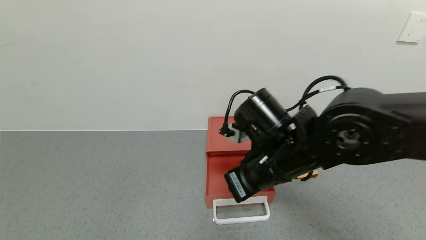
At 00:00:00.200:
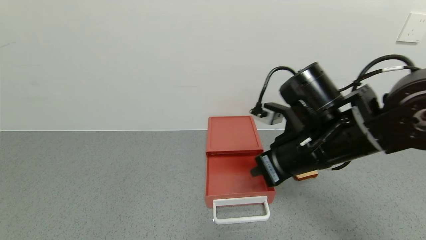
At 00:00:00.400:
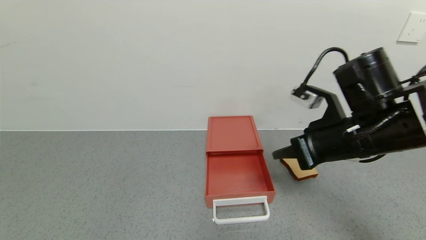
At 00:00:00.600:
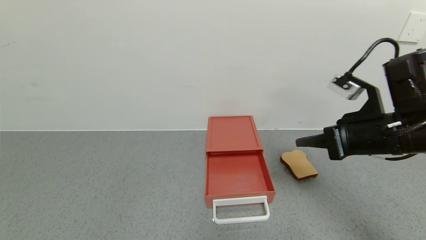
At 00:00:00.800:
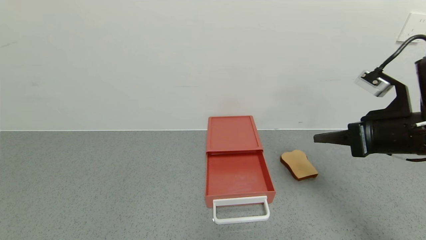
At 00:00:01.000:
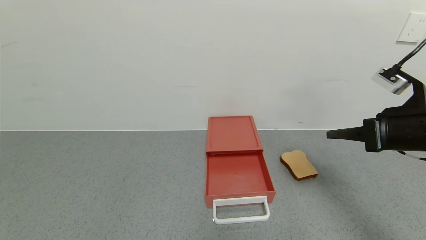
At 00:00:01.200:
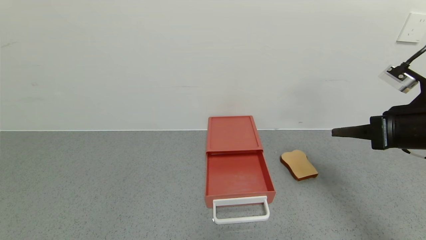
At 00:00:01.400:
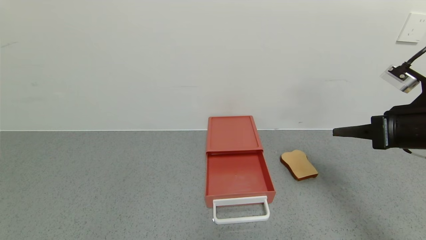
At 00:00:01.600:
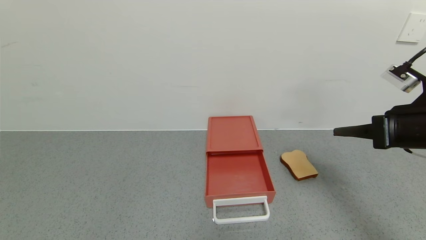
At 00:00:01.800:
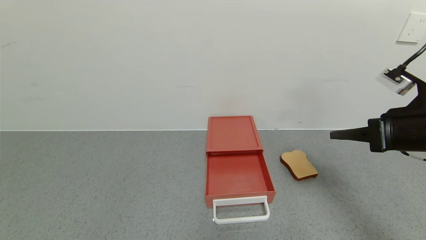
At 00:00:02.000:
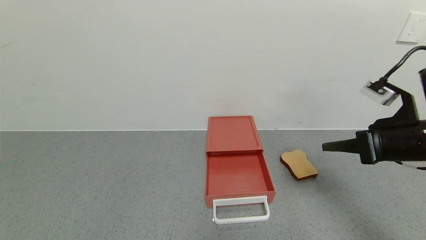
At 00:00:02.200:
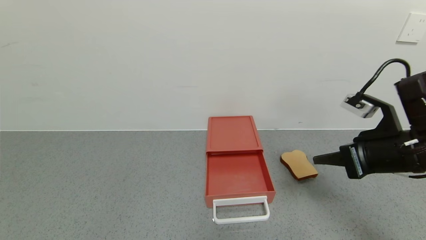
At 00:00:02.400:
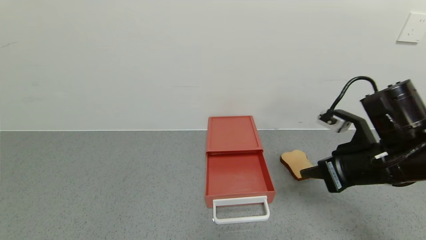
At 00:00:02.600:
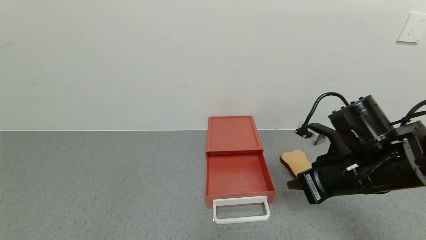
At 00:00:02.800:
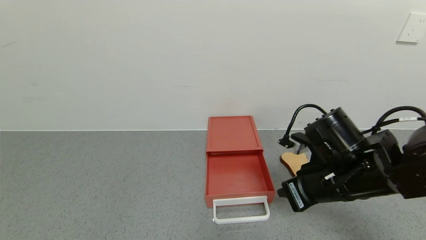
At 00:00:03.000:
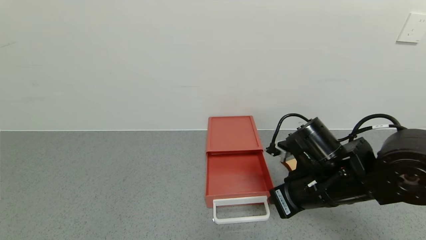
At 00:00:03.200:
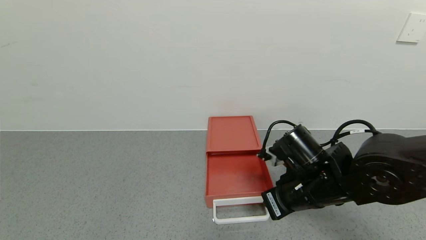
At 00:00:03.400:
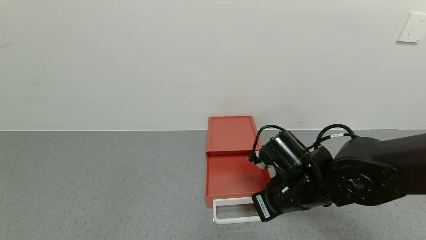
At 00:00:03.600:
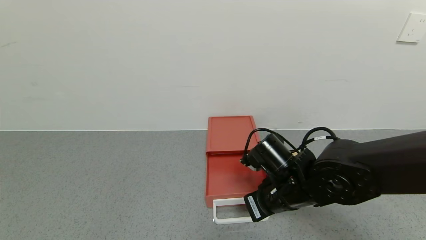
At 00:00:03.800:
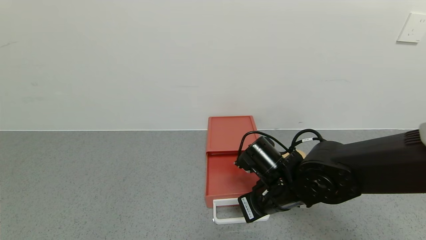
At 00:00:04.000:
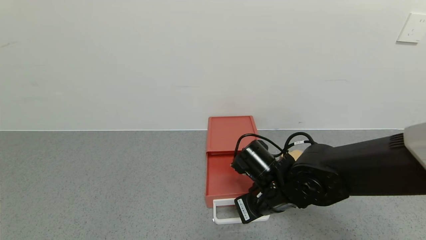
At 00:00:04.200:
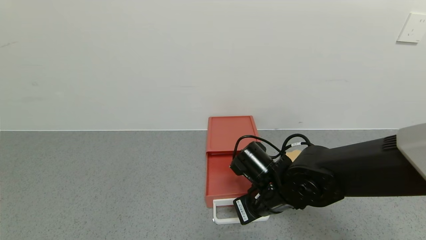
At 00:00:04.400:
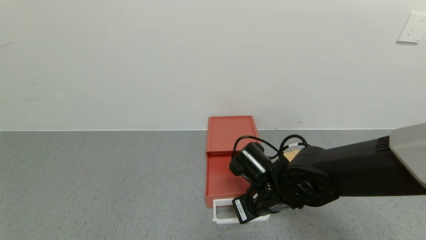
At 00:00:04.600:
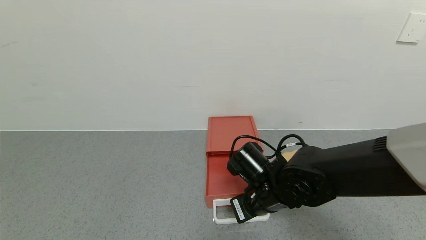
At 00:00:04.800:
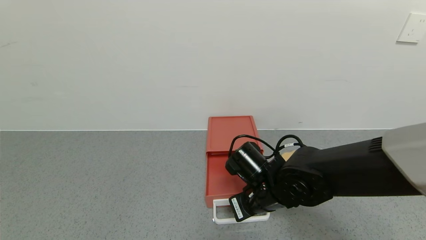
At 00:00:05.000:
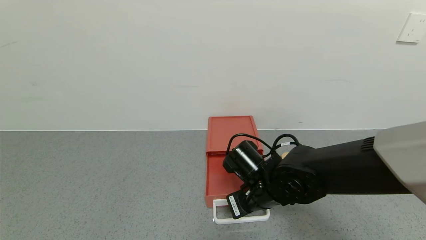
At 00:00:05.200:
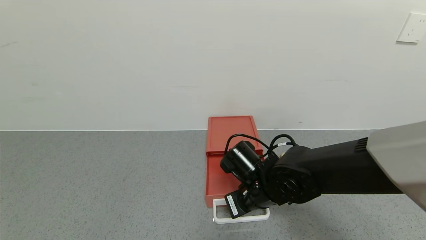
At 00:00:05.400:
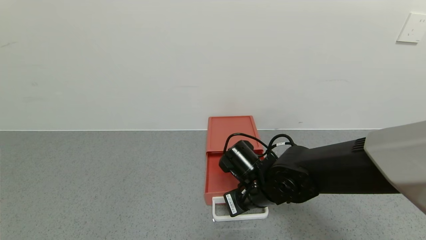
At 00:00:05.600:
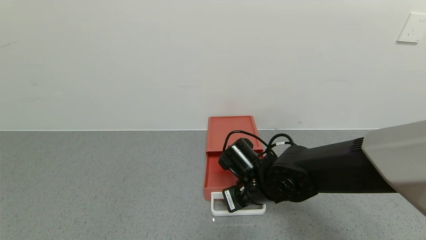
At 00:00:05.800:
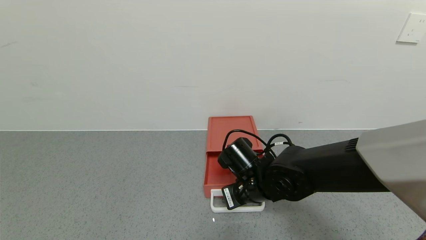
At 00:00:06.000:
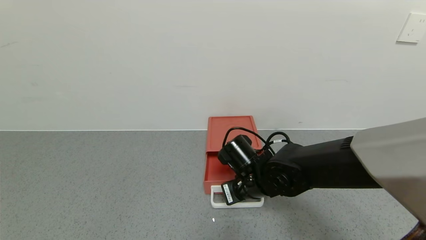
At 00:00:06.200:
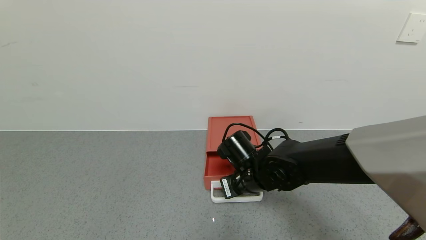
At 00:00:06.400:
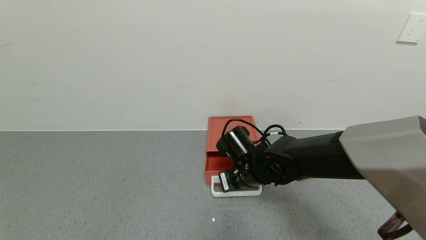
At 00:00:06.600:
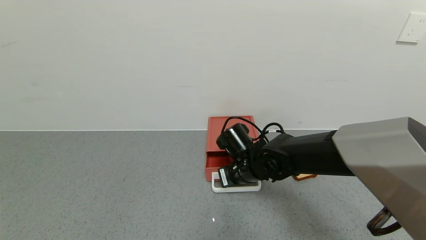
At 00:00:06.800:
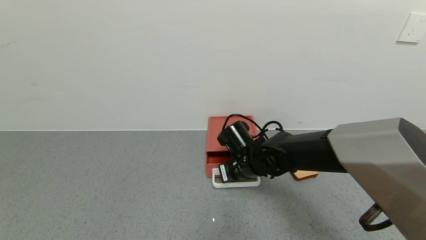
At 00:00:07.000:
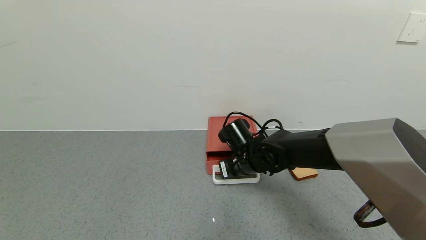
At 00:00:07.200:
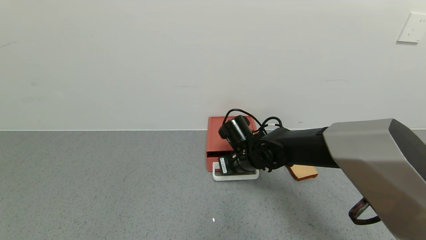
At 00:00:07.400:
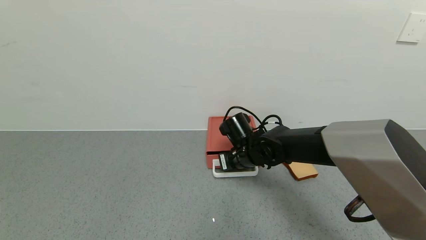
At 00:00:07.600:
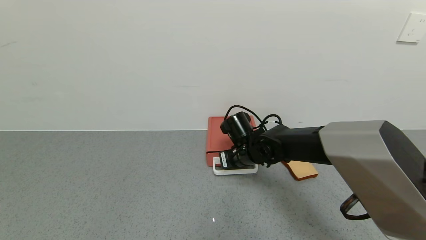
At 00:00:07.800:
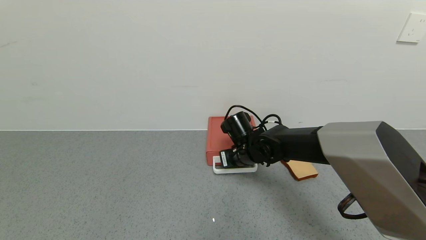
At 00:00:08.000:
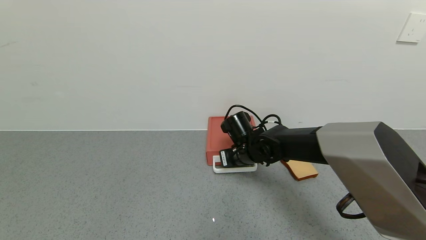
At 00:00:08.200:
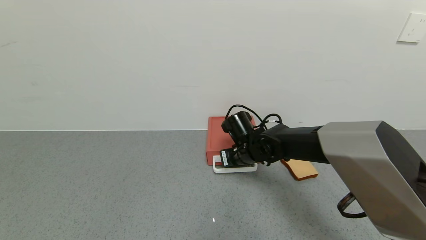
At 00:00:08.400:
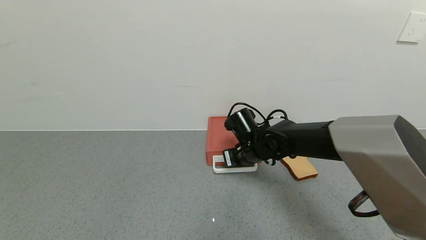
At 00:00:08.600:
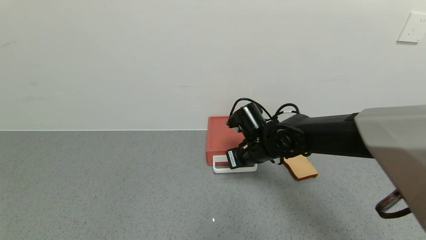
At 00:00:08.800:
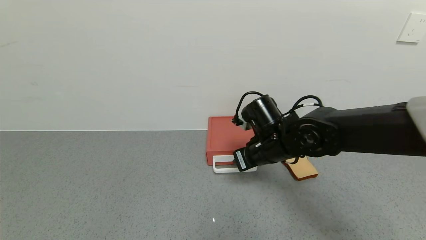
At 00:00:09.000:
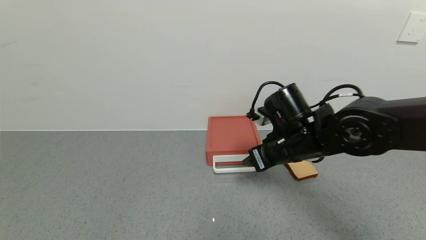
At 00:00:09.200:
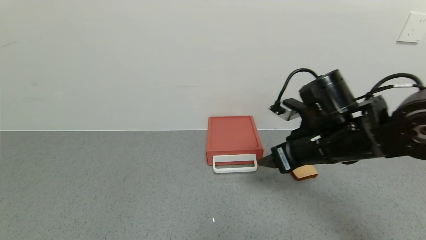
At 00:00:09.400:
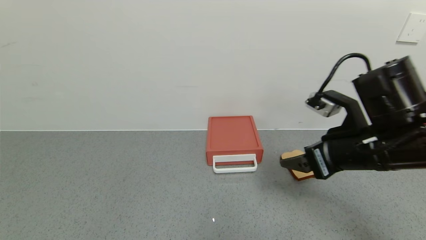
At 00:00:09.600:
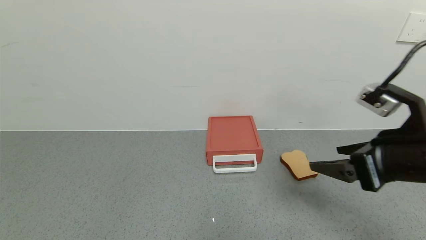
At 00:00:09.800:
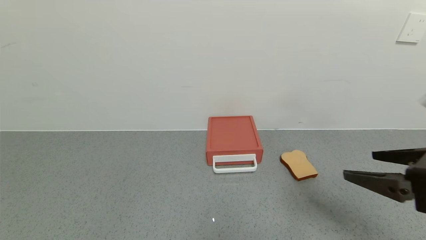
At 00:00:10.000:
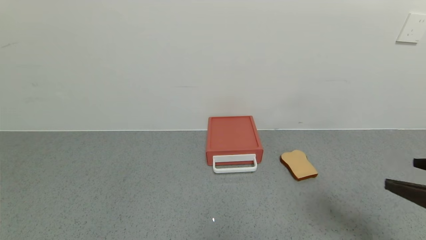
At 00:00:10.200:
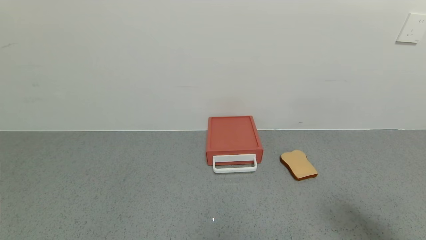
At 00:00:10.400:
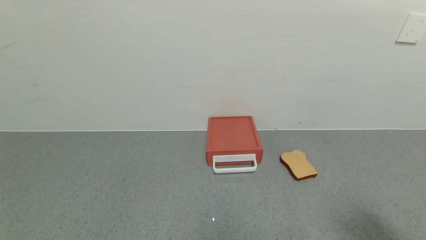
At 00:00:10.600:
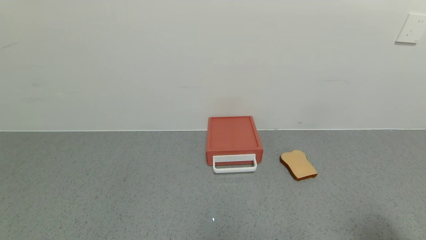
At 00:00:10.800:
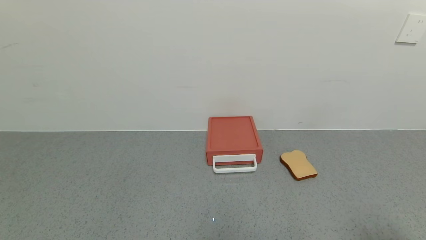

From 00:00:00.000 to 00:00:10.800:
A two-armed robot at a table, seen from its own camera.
Task of the whole recording: use the gripper to open the drawer and close the red drawer.
Step, from 00:00:00.200 to 00:00:08.400: Close the red drawer with the right gripper.
From 00:00:00.000 to 00:00:01.600: The right gripper travels to the right by some 20 cm.
From 00:00:01.600 to 00:00:03.000: The right gripper travels to the left and downward by some 20 cm.
From 00:00:03.000 to 00:00:04.600: The right gripper goes about 10 cm to the left and downward.
From 00:00:04.600 to 00:00:06.200: The grippers make only small movements.
From 00:00:06.200 to 00:00:07.800: The right gripper heads forward, covering approximately 10 cm.
From 00:00:07.800 to 00:00:09.200: The right gripper goes about 20 cm backward, upward and to the right, and opens up.
From 00:00:09.200 to 00:00:10.800: The right gripper is displaced backward and to the right by some 35 cm.
